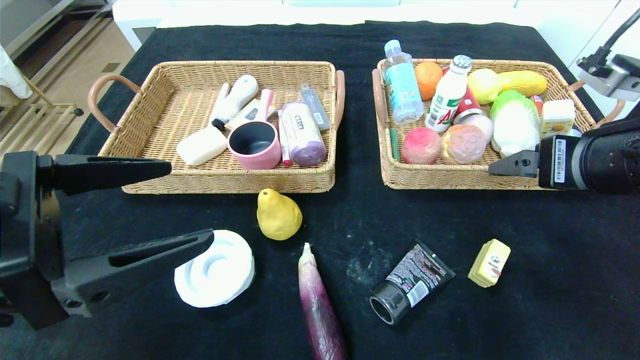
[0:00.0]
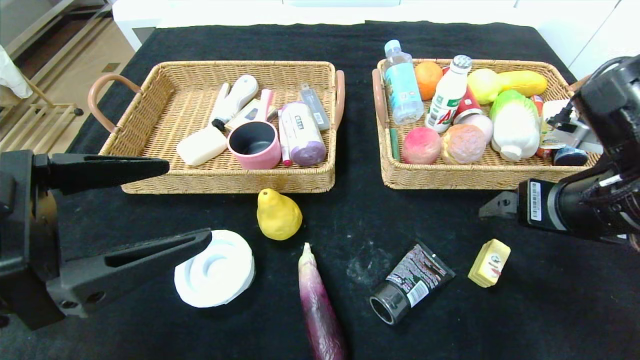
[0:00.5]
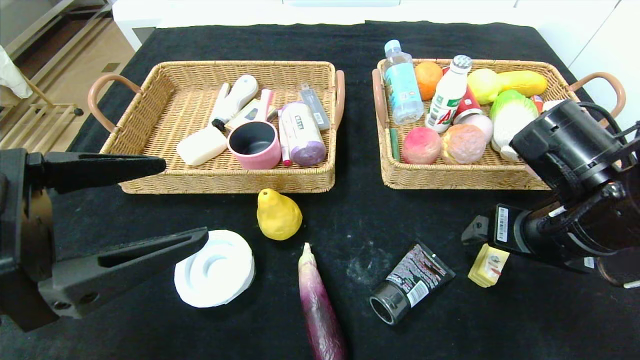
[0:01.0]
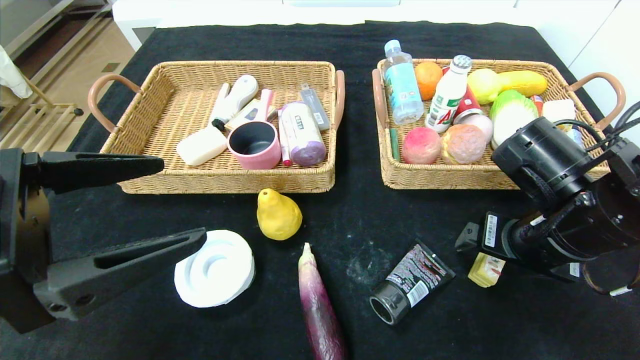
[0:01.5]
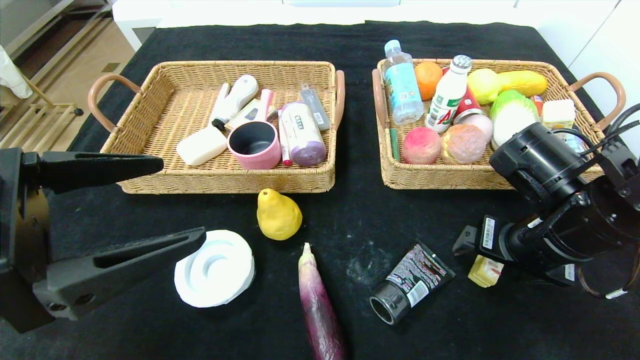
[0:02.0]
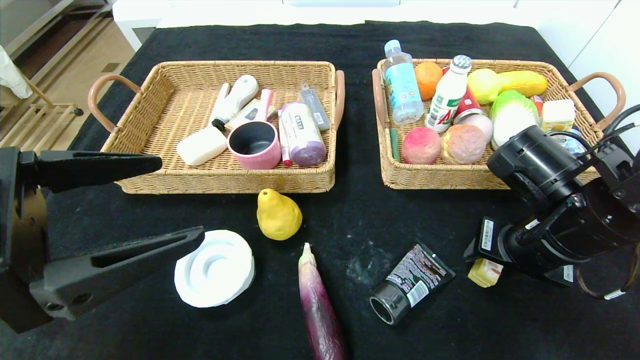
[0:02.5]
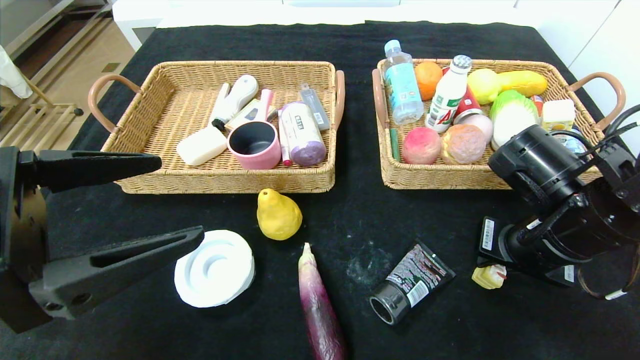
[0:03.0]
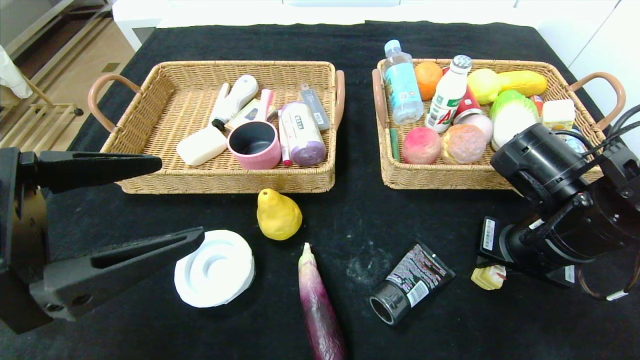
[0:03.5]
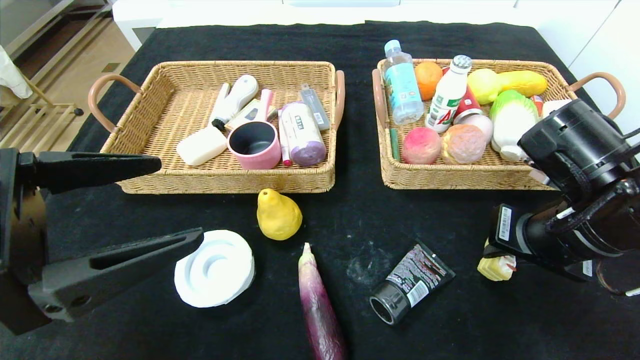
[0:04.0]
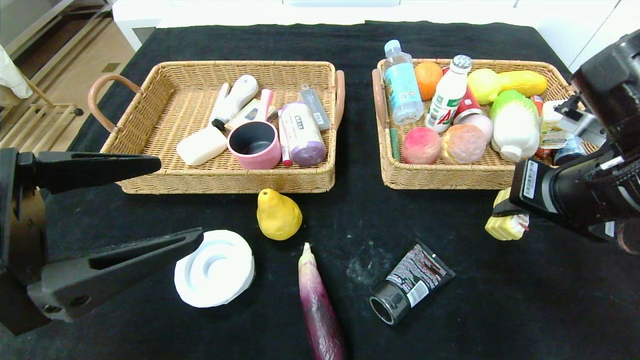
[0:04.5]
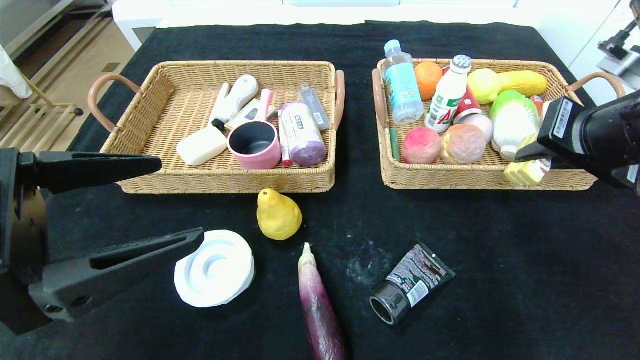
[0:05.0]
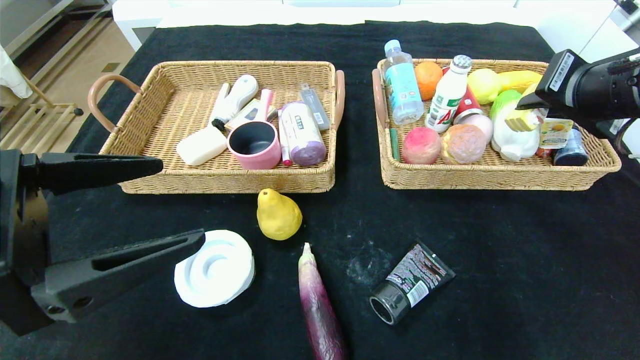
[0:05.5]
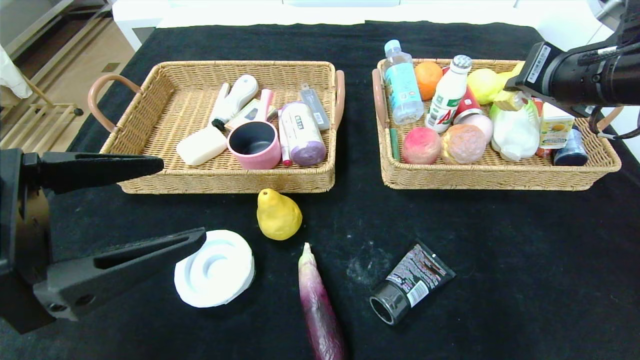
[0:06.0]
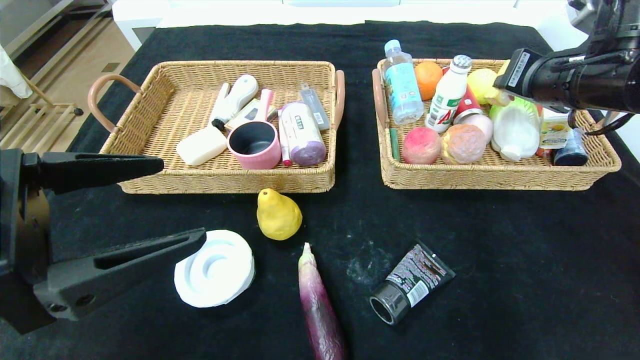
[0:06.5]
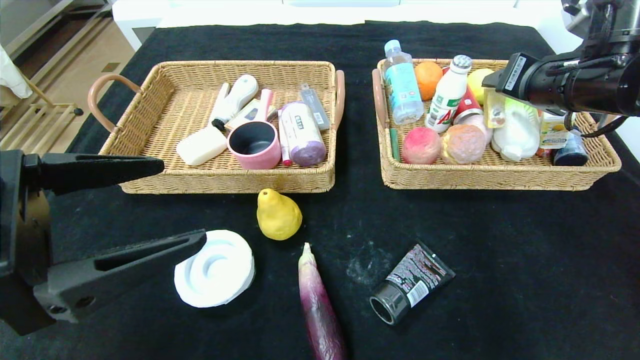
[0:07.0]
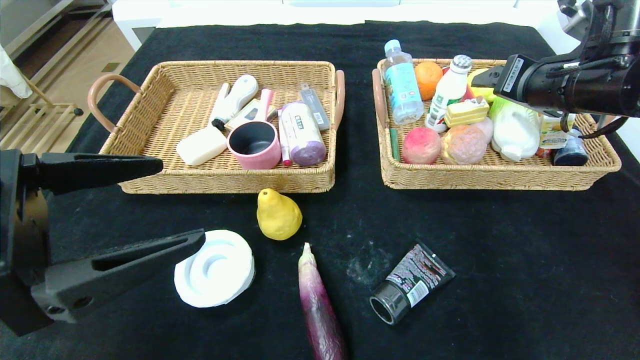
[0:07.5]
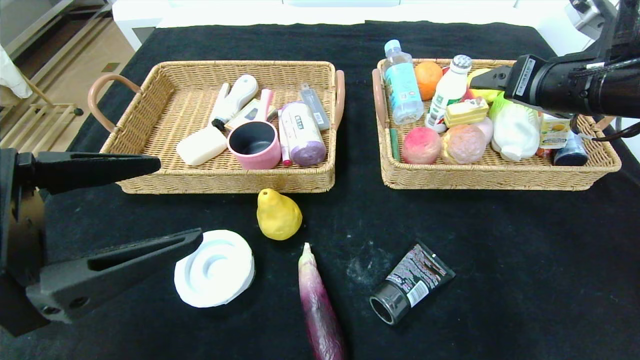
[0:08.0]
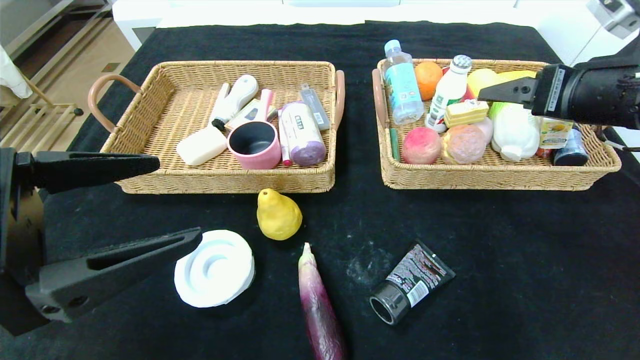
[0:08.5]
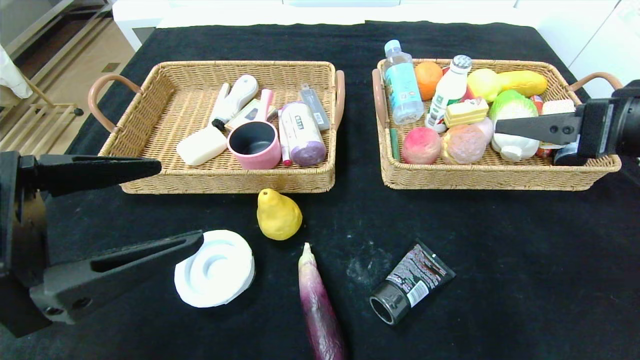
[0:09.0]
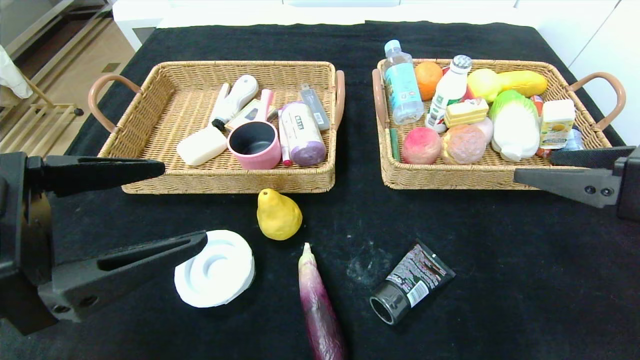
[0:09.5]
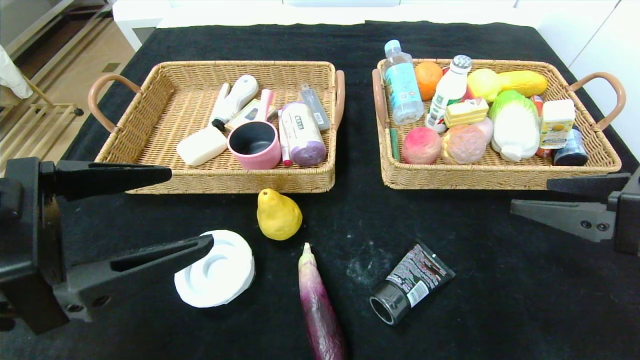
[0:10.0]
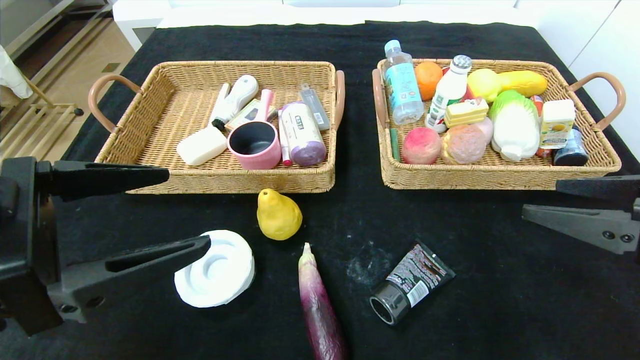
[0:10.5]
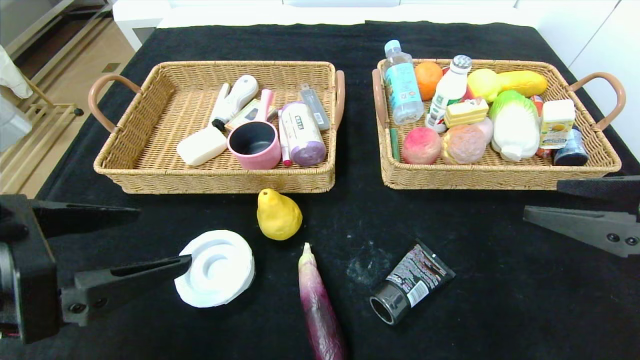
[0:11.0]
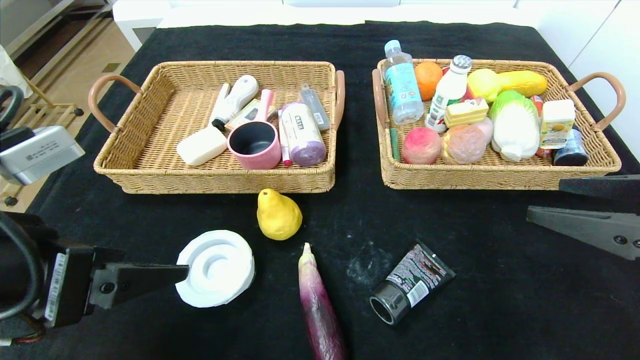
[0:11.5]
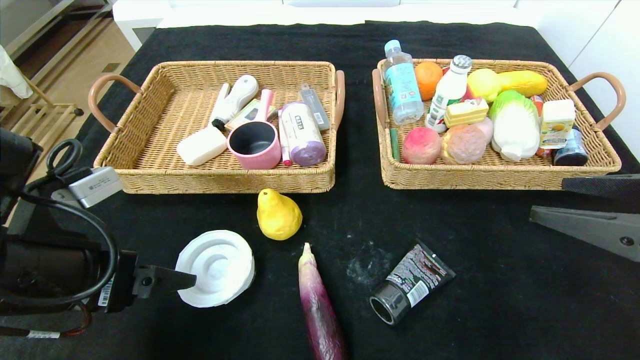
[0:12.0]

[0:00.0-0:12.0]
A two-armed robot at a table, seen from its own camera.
Step, 0:00.5 to 0:09.5: Pick up the yellow cake and put it in the right basket.
0:00.0 to 0:02.0: The right gripper travels downward by roughly 10 cm.
0:02.0 to 0:04.0: The right gripper closes up.
0:04.0 to 0:06.0: The right gripper heads upward and forward, covering roughly 15 cm.
0:06.0 to 0:08.0: The right gripper opens.
0:08.0 to 0:10.0: The right gripper is displaced backward and downward by some 15 cm.
0:10.0 to 0:12.0: The left gripper shifts by about 5 cm.

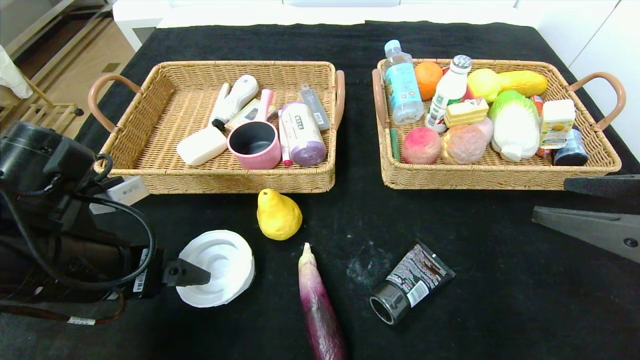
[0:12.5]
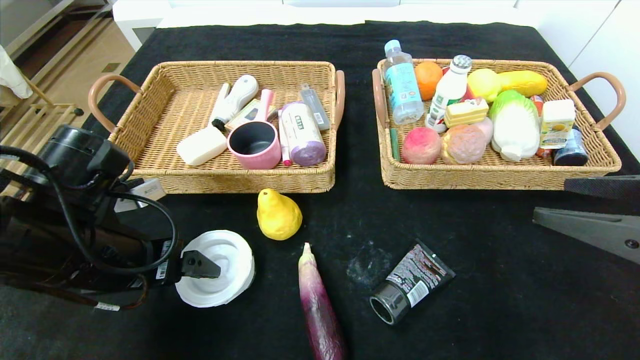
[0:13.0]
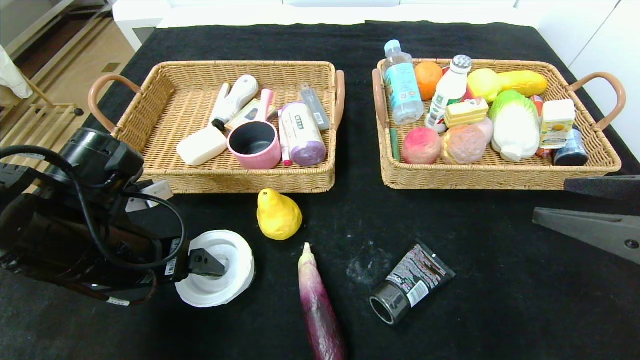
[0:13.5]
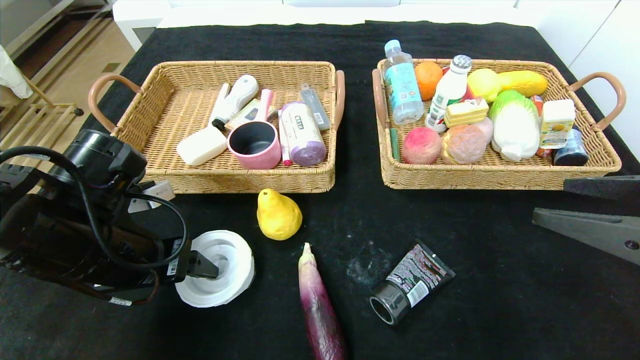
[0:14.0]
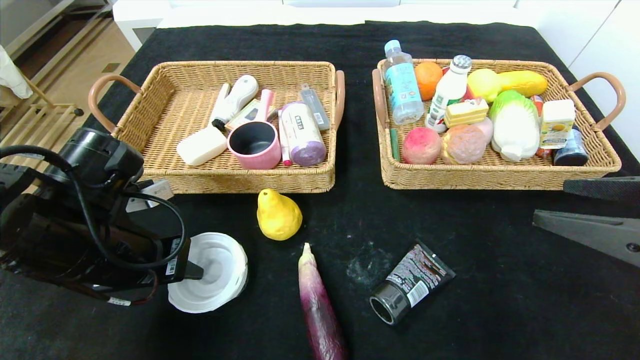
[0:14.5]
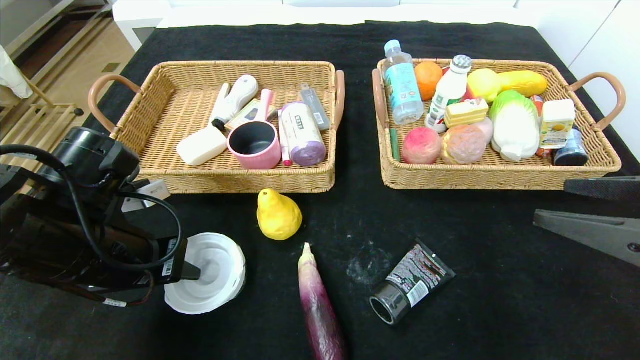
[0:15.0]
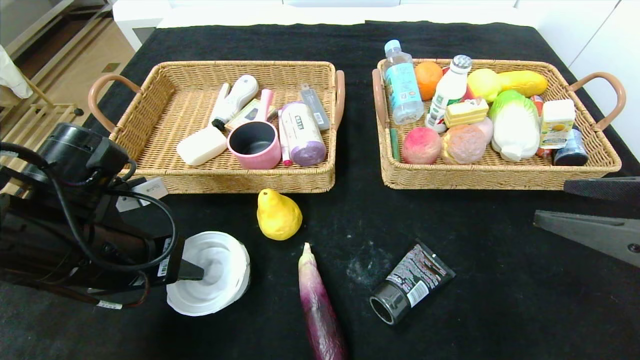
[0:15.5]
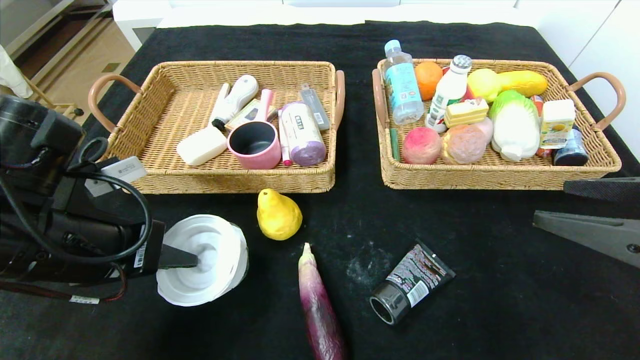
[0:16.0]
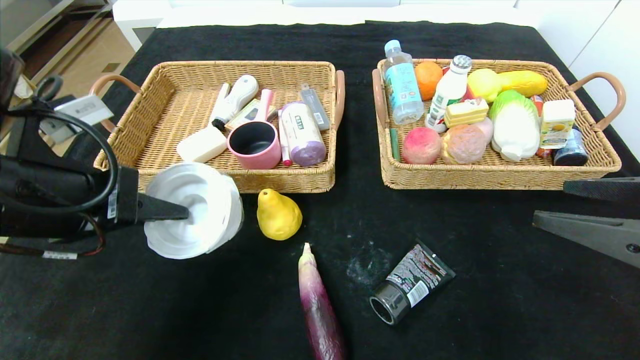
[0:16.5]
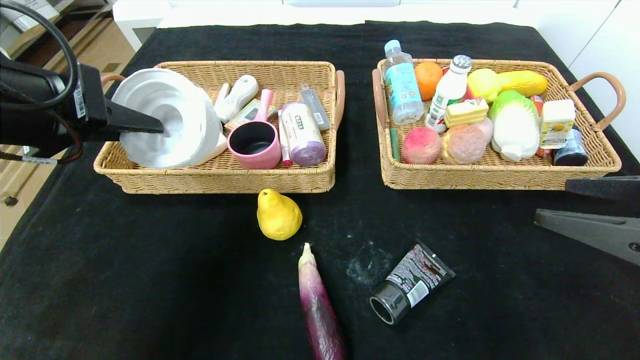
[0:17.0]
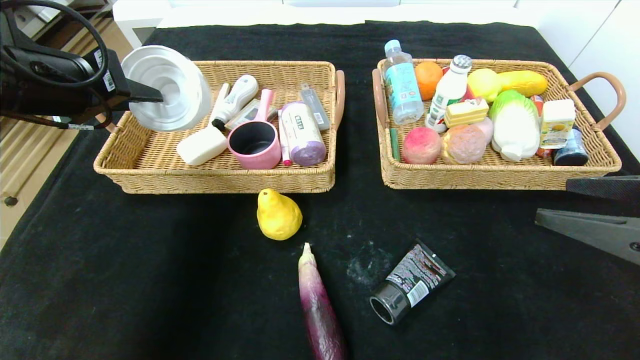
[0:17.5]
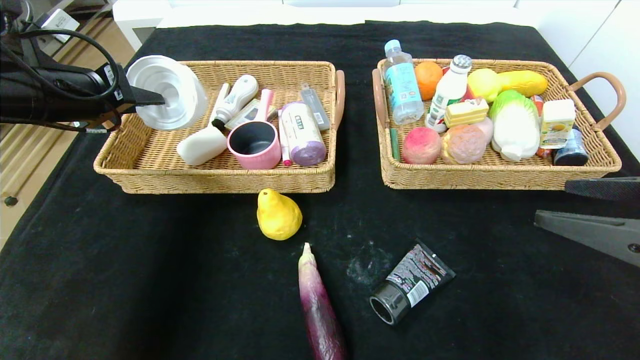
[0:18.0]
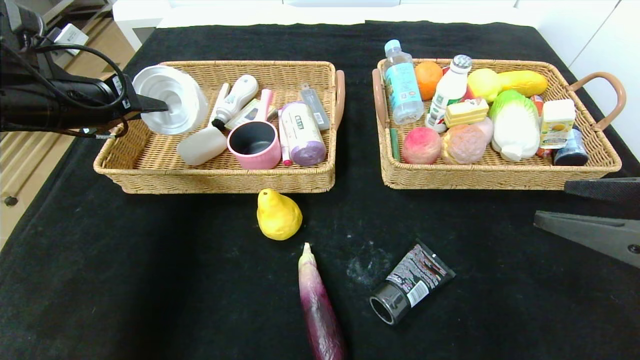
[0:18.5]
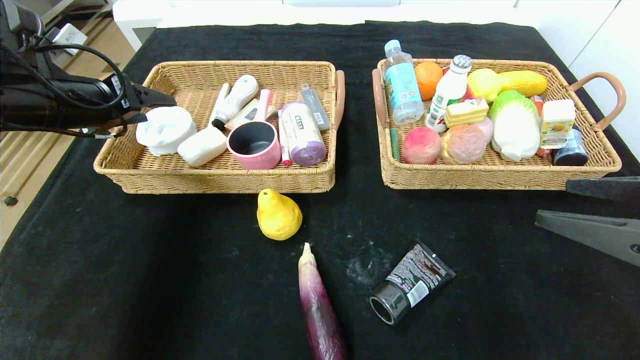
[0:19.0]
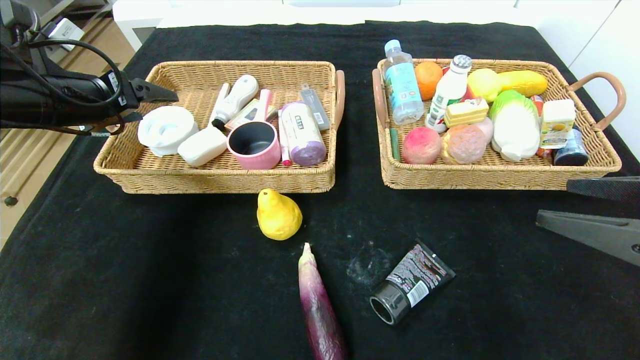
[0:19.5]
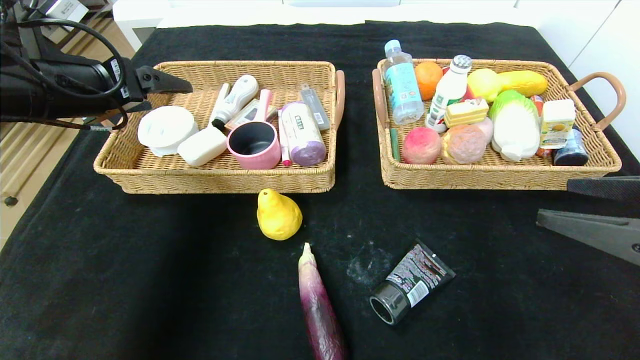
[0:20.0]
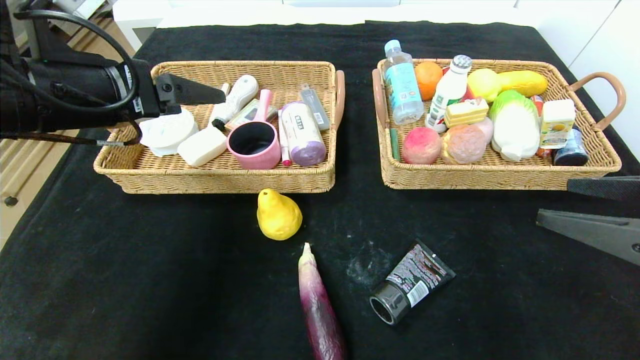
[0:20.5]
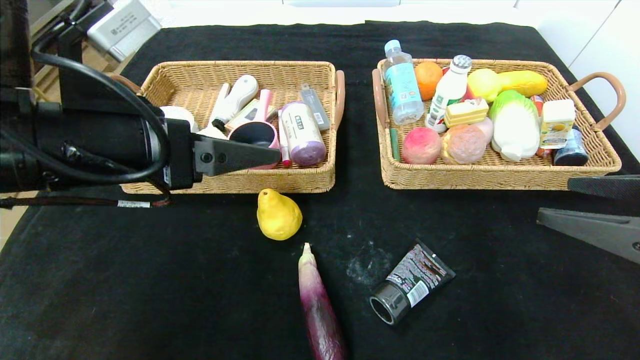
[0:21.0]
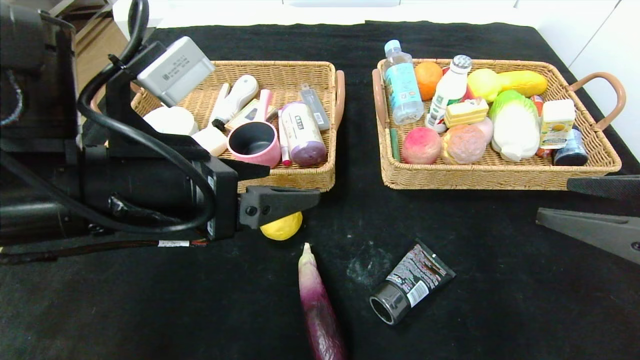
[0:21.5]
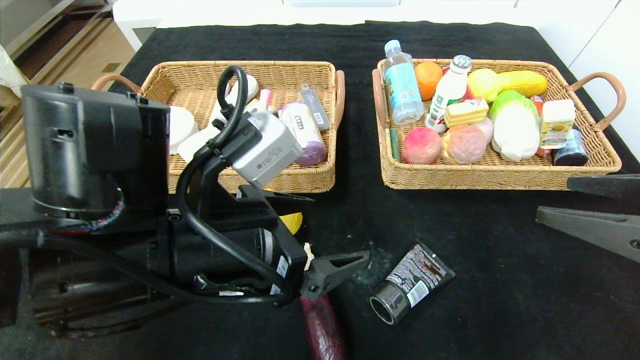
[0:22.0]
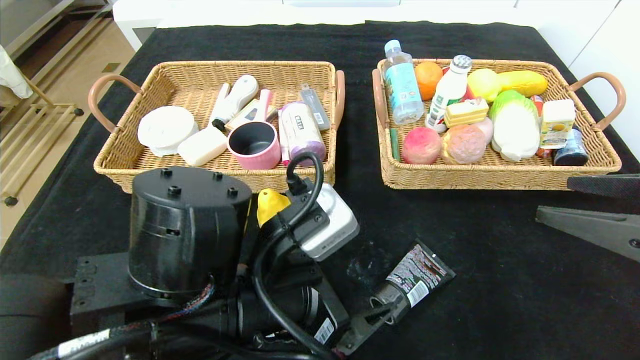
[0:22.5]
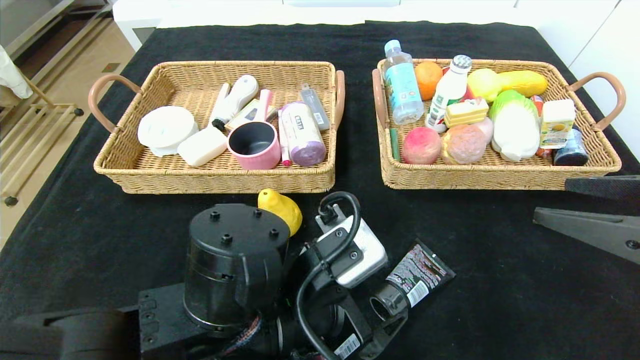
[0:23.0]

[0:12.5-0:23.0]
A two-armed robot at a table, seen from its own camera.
Step, 0:12.5 to 0:21.5: Pick up the tape and put it in the left basket.
0:12.5 to 0:14.5: The left gripper closes up.
0:14.5 to 0:16.5: The left gripper travels upward by roughly 10 cm.
0:16.5 to 0:19.0: The left gripper goes roughly 15 cm forward and to the left, and opens its fingers.
0:19.0 to 0:21.0: The left gripper shifts roughly 20 cm to the right and backward.
0:21.0 to 0:23.0: The left gripper shifts some 20 cm downward and to the right.
